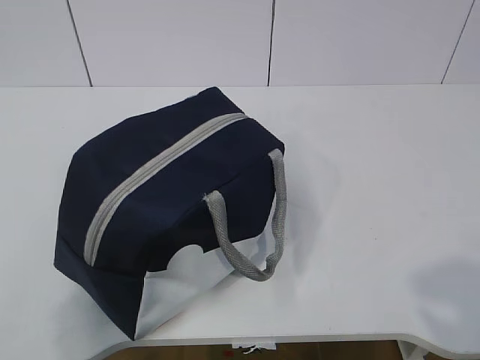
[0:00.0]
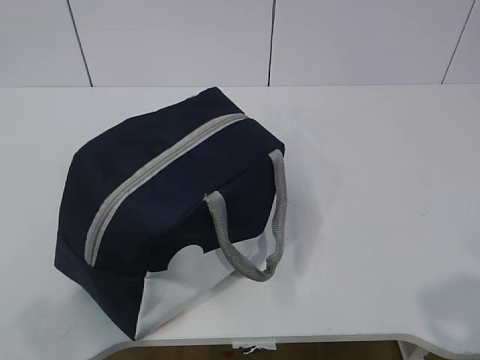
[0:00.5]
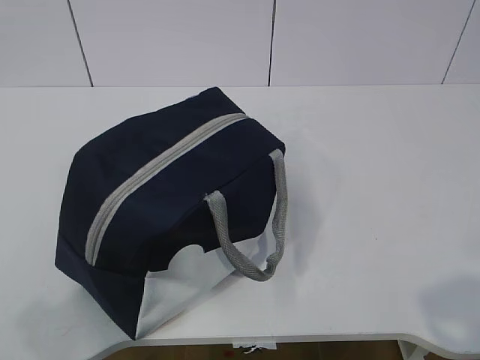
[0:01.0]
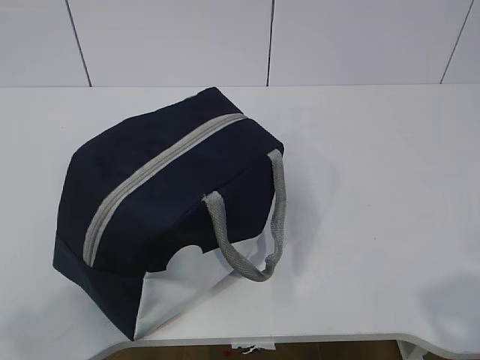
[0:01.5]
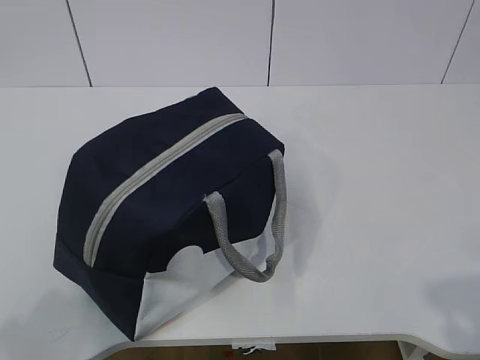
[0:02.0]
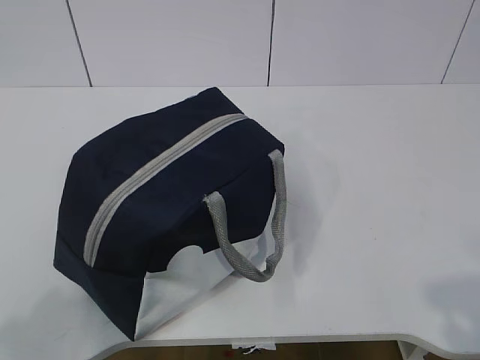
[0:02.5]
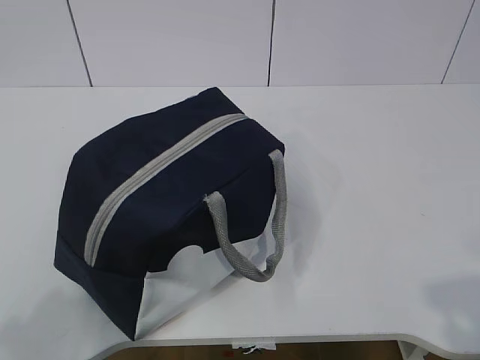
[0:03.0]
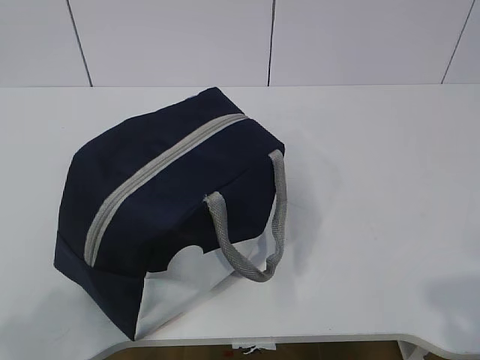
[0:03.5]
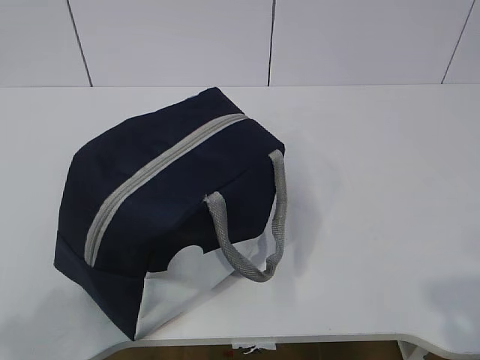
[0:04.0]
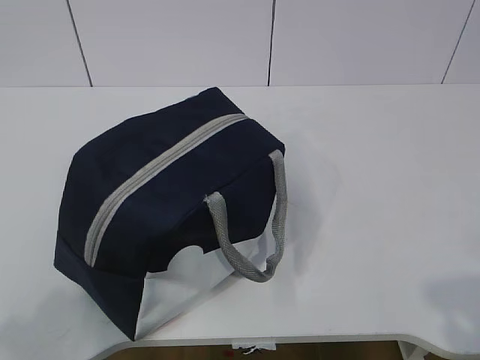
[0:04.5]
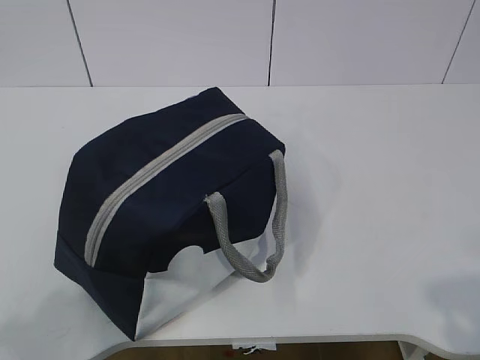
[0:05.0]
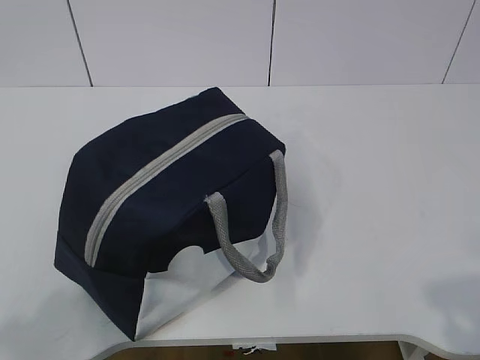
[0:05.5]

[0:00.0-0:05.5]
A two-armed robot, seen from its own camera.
0:02.0 to 0:05.5: Both grippers stay put.

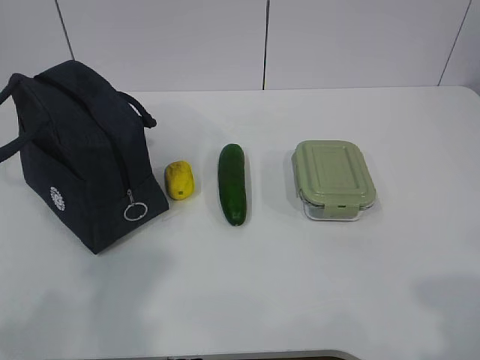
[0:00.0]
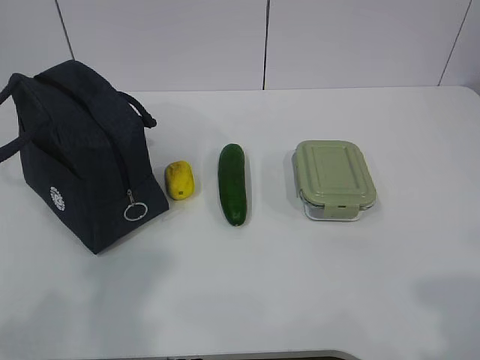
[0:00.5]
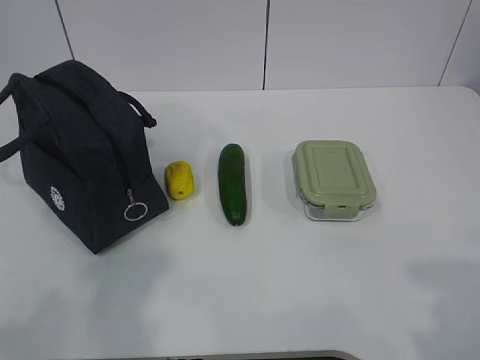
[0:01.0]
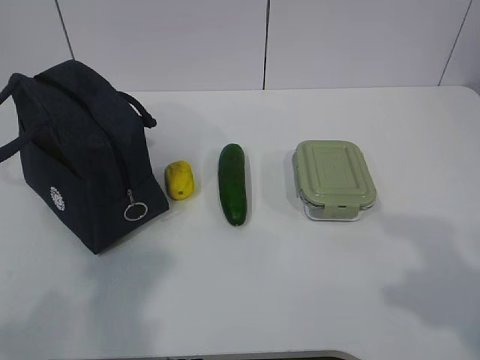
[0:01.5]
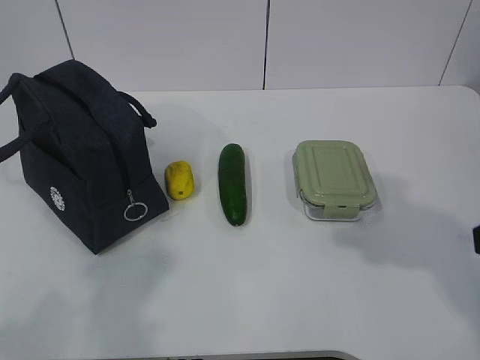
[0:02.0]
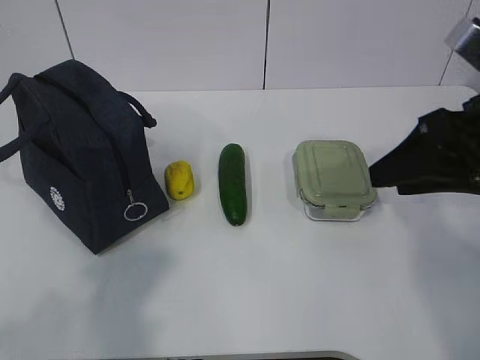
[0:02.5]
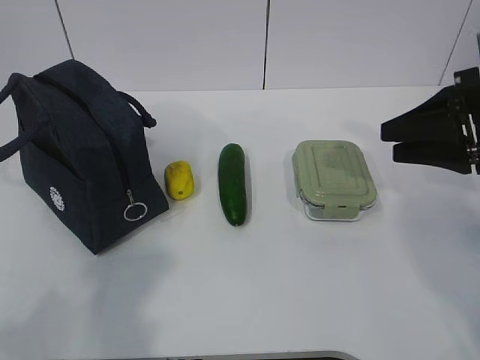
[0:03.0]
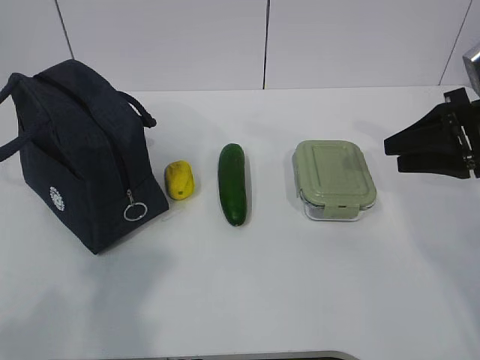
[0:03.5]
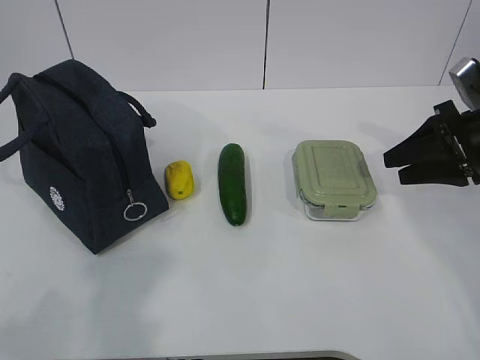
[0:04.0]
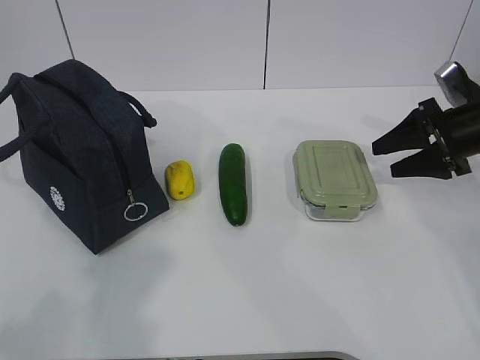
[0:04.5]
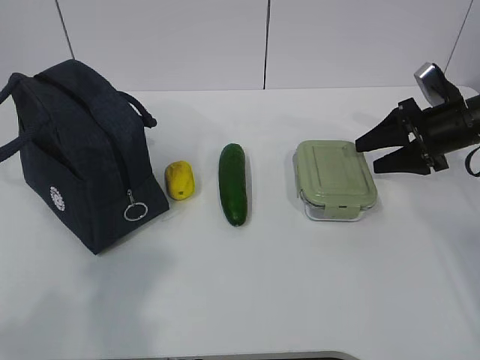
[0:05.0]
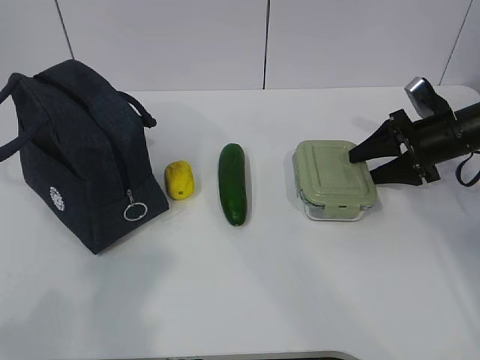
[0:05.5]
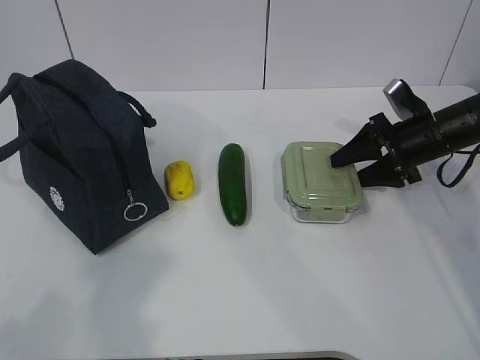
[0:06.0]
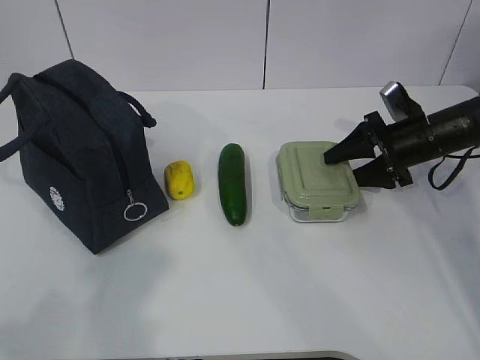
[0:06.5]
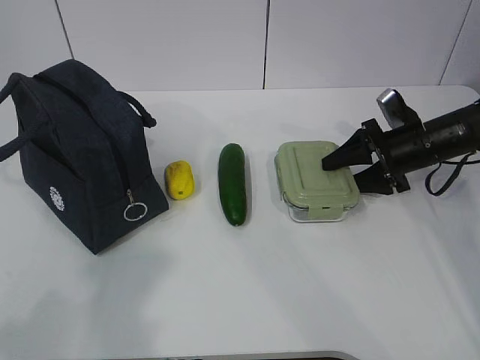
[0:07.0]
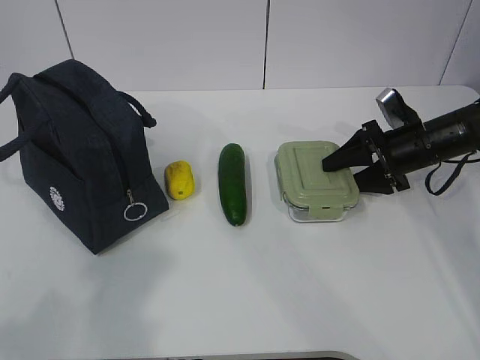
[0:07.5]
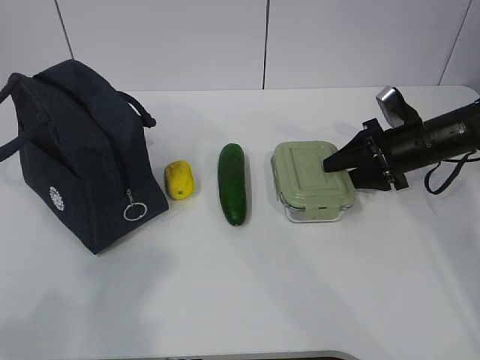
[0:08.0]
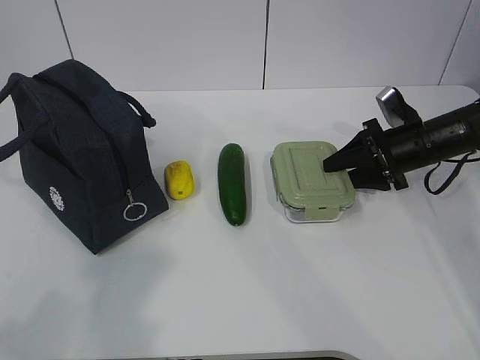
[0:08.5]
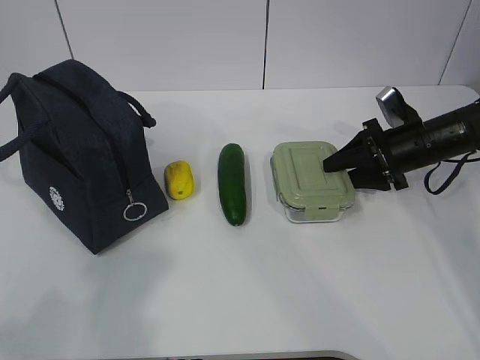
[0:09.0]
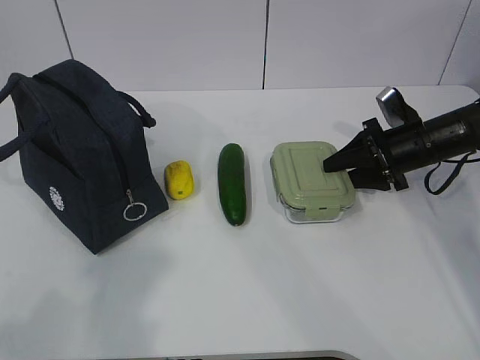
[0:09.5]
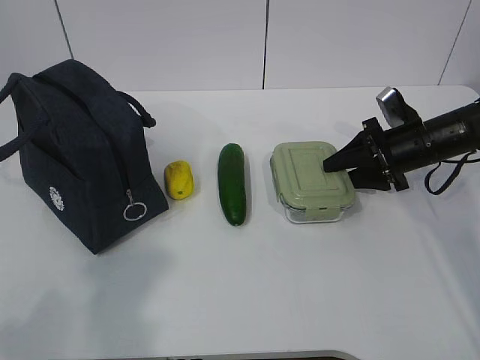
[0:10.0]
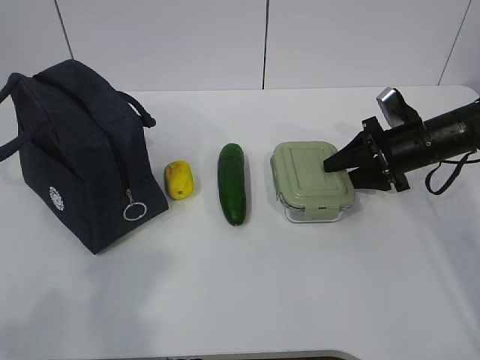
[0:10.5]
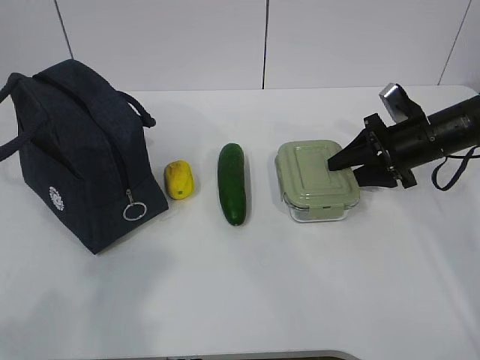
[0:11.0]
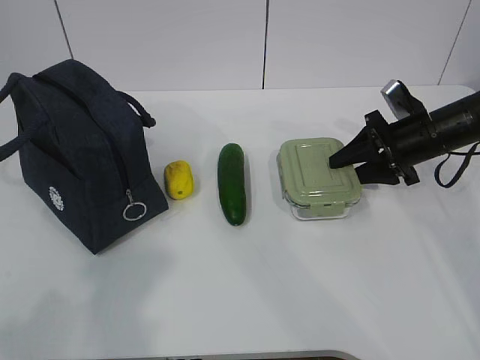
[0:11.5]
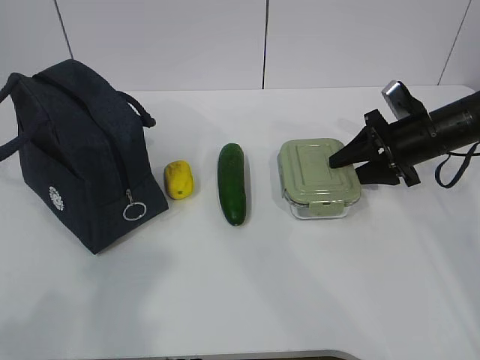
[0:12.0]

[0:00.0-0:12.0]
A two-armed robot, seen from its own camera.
Step, 0:00.0 to 0:10.0: Grab the lunch box with your right hand.
0:02.0 to 0:04.0: The right gripper travels forward by approximately 20 cm.
0:04.0 to 0:06.0: The right gripper shifts approximately 10 cm forward and downward.
0:06.0 to 0:08.0: The grippers make only small movements.
0:08.0 to 0:10.0: The two grippers keep their place.
0:10.0 to 0:12.0: The grippers move only a little.

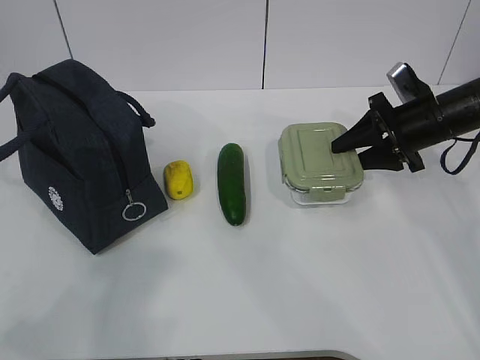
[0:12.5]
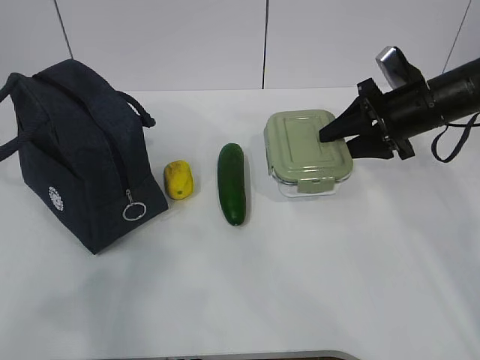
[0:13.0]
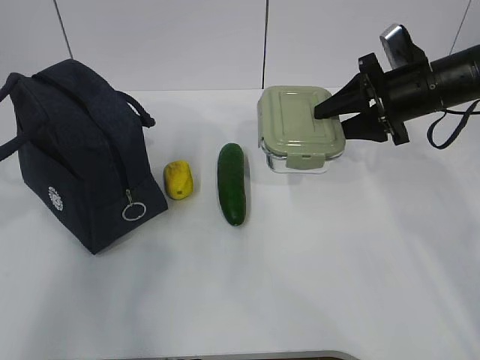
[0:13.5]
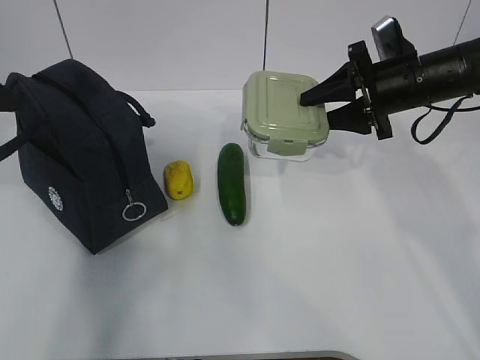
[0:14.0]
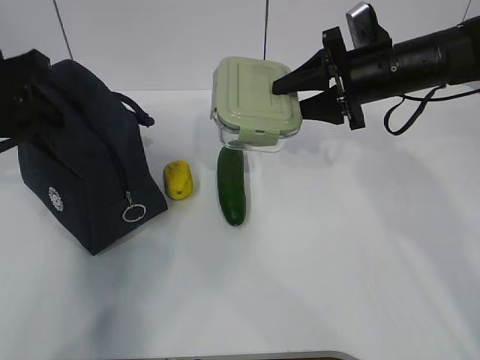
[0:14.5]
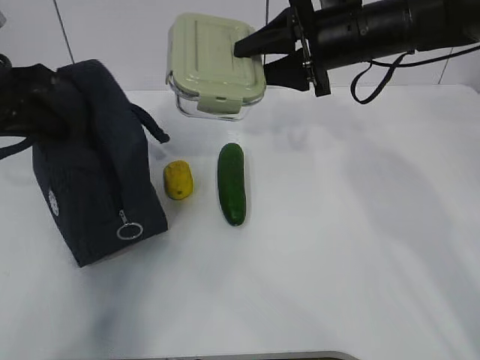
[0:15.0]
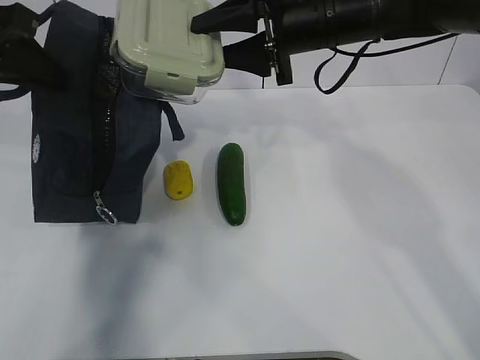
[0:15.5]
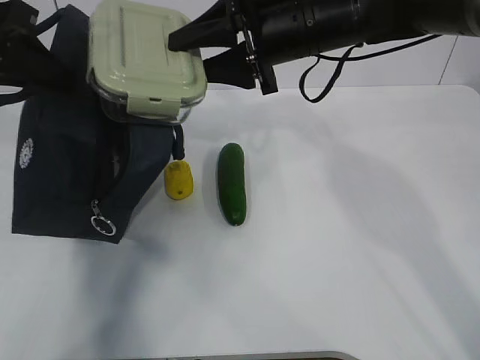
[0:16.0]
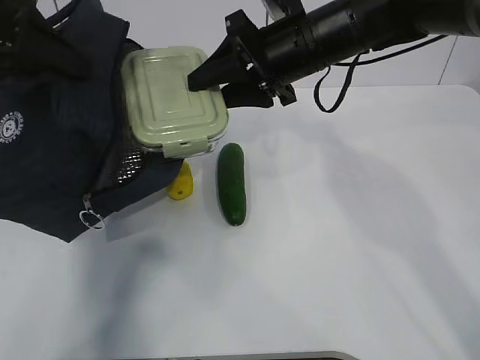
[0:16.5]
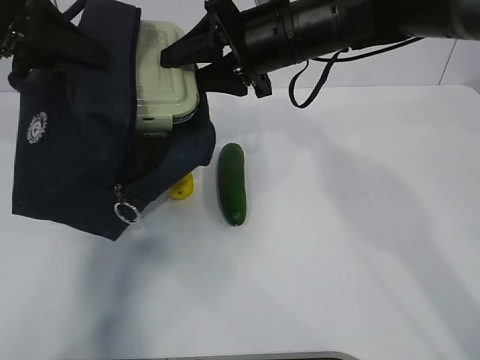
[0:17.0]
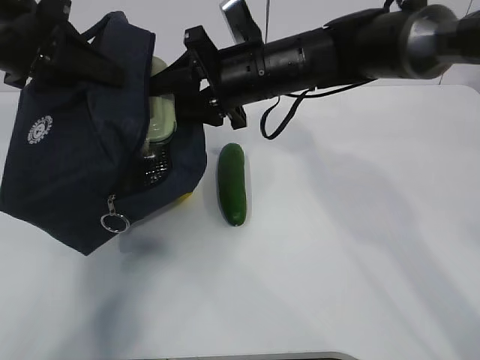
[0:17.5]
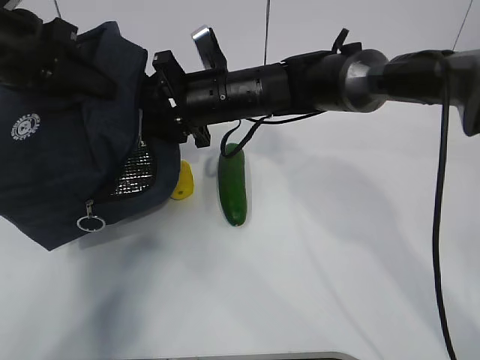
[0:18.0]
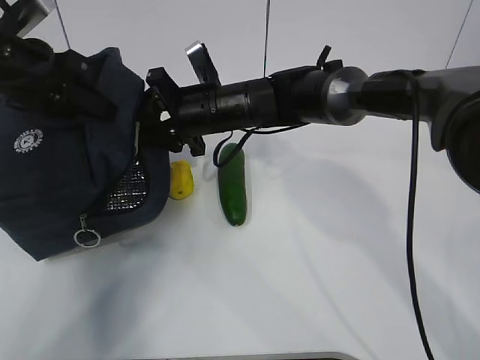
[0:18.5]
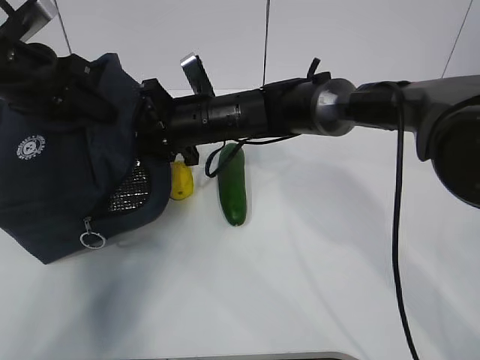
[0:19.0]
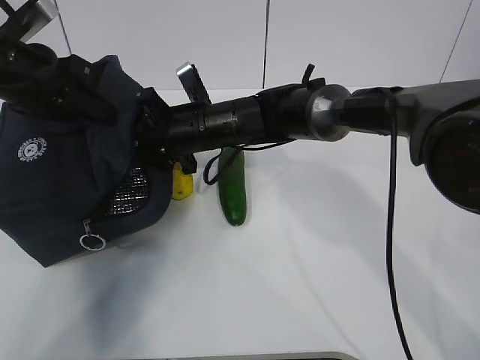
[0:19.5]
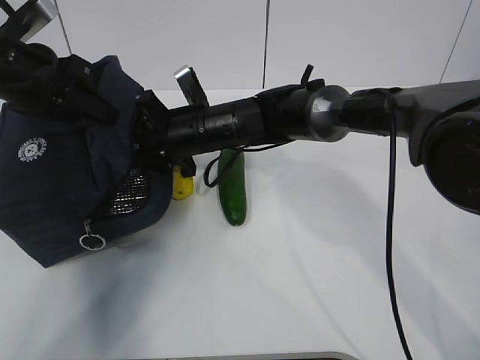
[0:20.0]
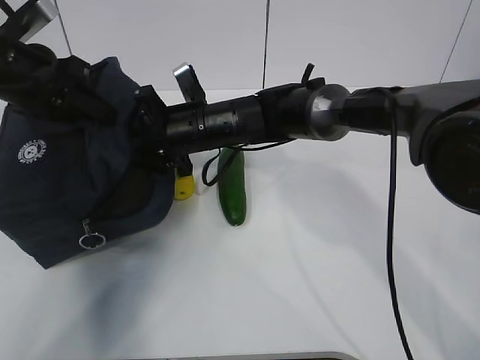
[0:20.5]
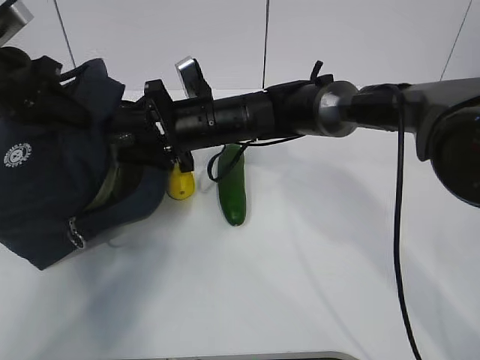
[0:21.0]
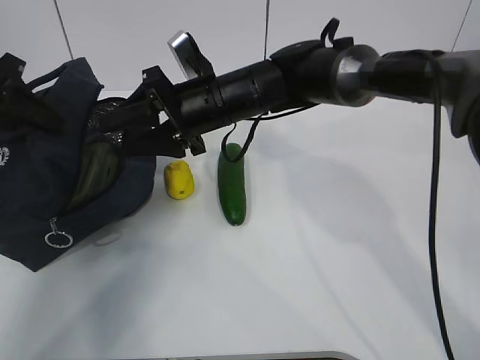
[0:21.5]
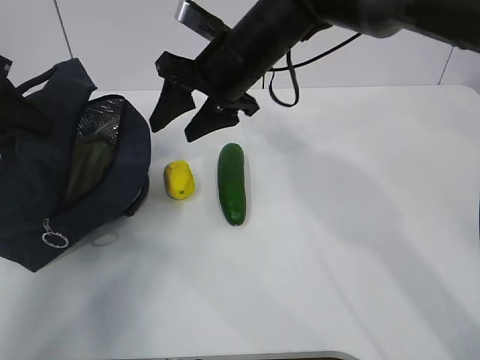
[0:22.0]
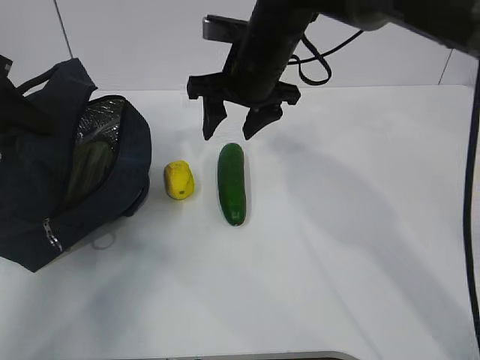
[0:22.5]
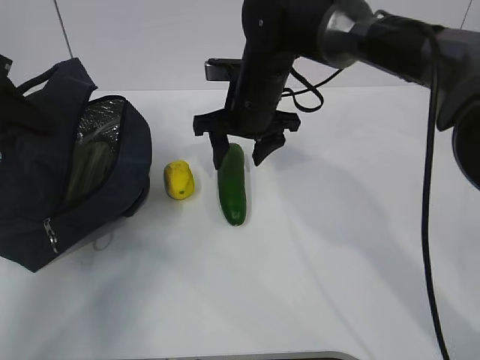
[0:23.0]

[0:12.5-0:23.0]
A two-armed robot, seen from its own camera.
Step, 0:13.5 to 0:17.0: Place it into the bag with your right hand.
Step, 0:17.5 to 0:20.0: Grab the cucumber with your right hand.
Step, 0:21.0 to 0:22.5: Place it into the bag with your right hand.
0:12.5 to 0:14.5: The right gripper is displaced to the left and upward by roughly 10 cm, while the left gripper moves forward, roughly 30 cm.
0:14.5 to 0:16.5: The left gripper shifts roughly 5 cm upward, and closes its fingers; the right gripper shifts about 10 cm to the left.
0:16.5 to 0:19.0: The left gripper moves downward and forward, about 10 cm. Meanwhile the right gripper goes some 15 cm downward and to the left.
0:19.0 to 0:21.0: There are only small adjustments of the grippers.
0:21.0 to 0:23.0: The right gripper travels to the right by approximately 5 cm.
